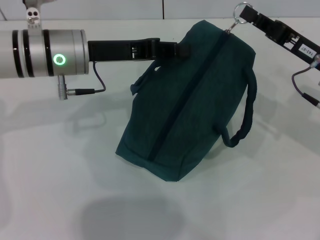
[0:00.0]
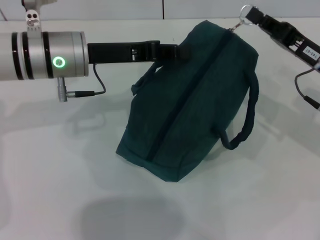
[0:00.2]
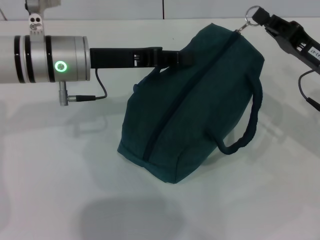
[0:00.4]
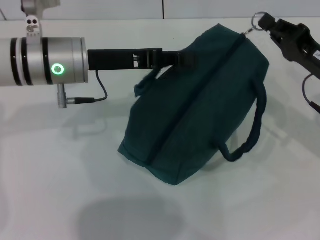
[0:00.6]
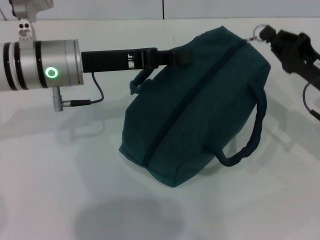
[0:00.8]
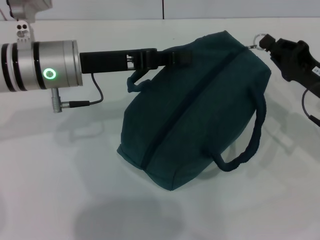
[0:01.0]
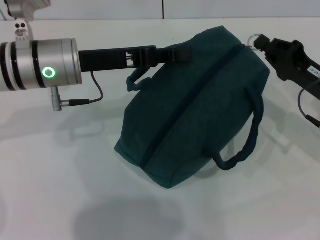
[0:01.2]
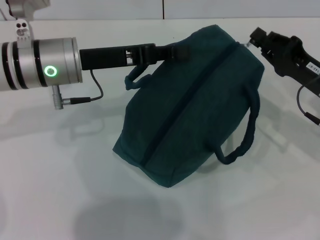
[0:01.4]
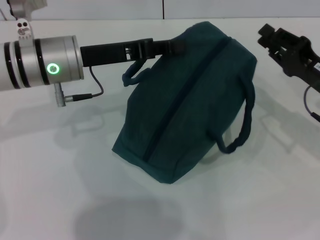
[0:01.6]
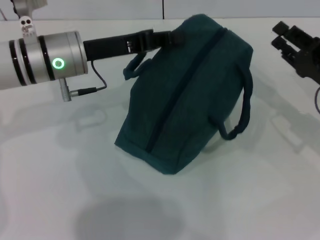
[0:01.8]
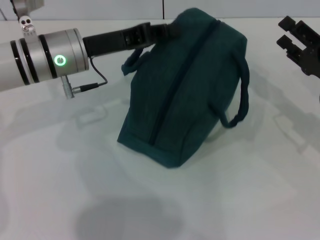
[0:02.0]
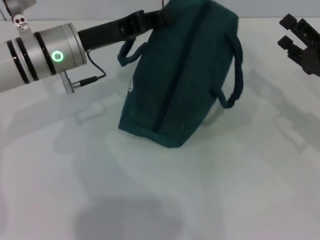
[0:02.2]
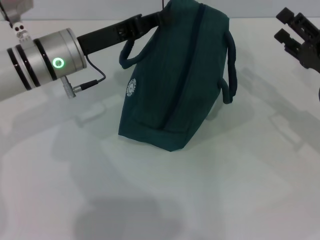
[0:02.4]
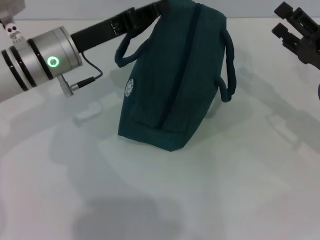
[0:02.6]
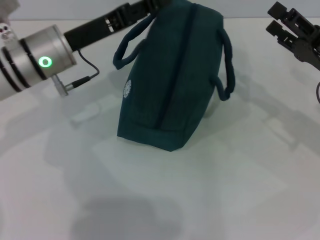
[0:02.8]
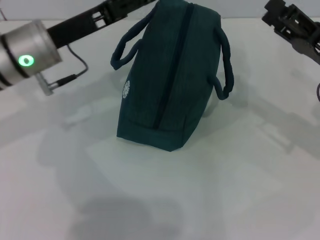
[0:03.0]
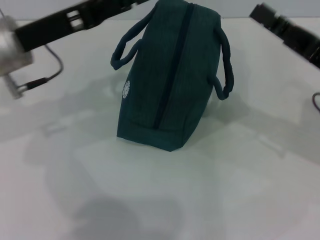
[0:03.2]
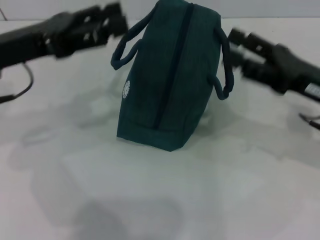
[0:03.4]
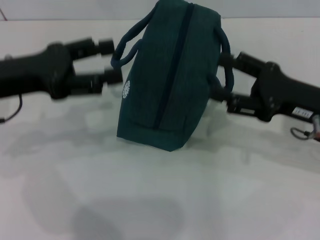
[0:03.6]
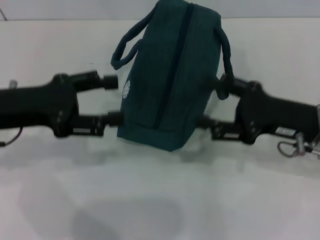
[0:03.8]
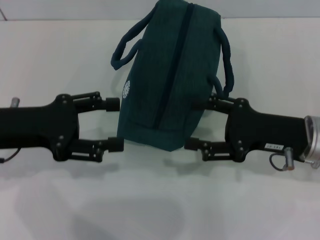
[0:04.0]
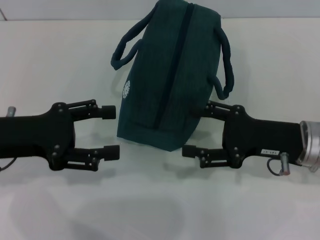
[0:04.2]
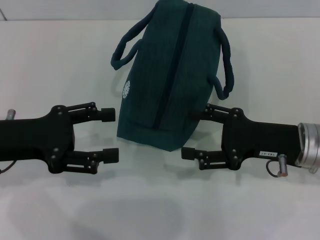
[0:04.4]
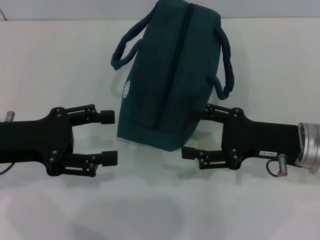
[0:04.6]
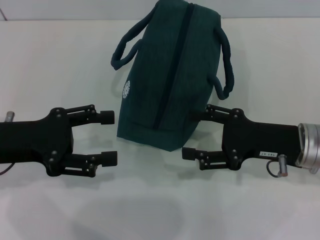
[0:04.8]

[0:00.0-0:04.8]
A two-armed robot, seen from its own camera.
Step, 0:01.6 to 0:02.8: Hold the lunch bag with your left hand.
0:01.6 to 0:03.2: The right gripper moves some 5 cm, and opens; the left gripper ends up about 5 cm from where it was, and opens up.
0:03.2 to 0:04.8: The right gripper ends up approximately 5 cm from where it was. The left gripper shifts approximately 10 cm backward and to the left.
